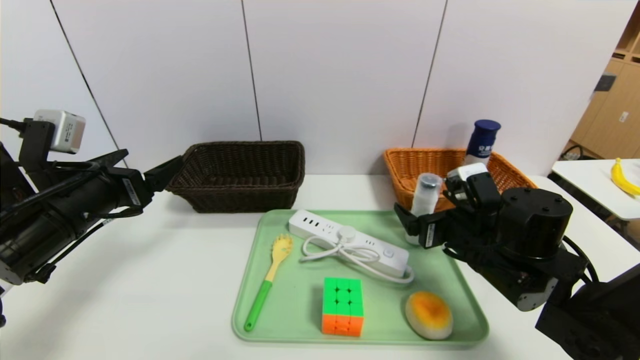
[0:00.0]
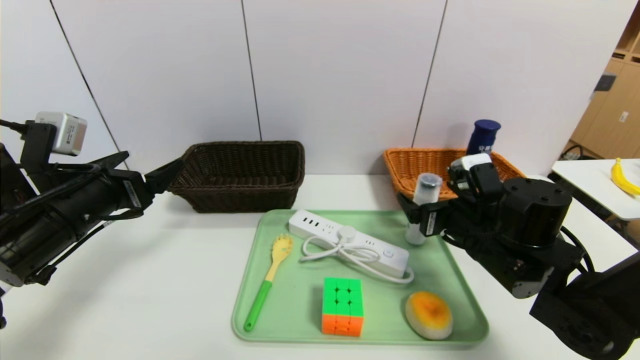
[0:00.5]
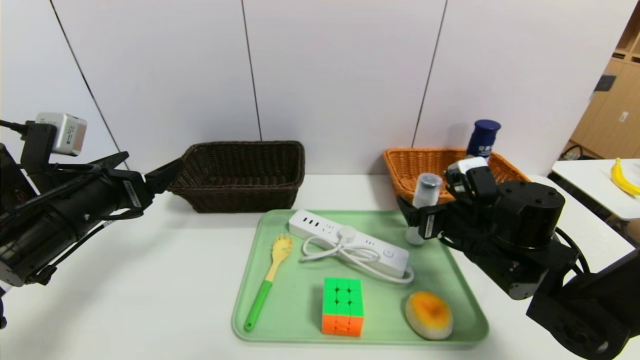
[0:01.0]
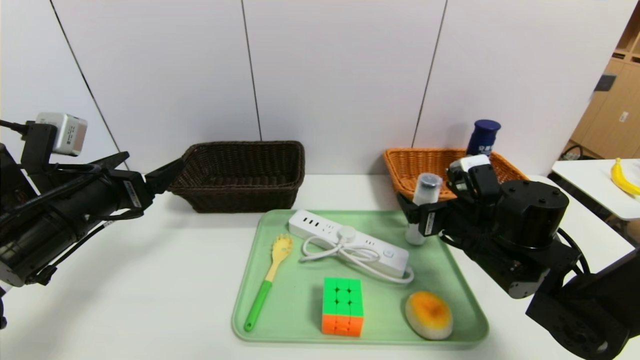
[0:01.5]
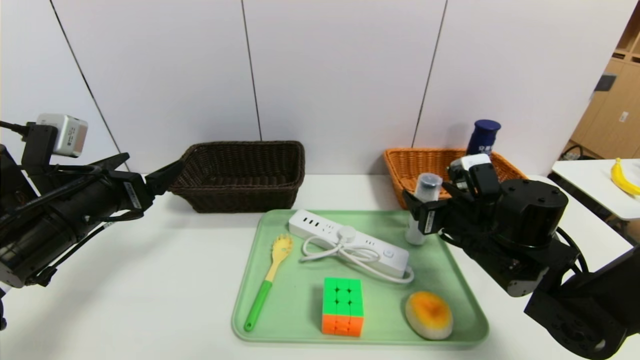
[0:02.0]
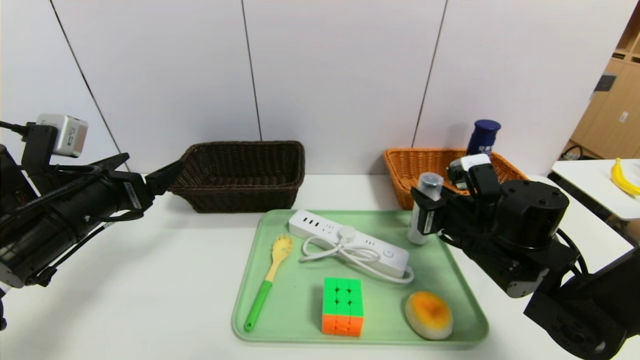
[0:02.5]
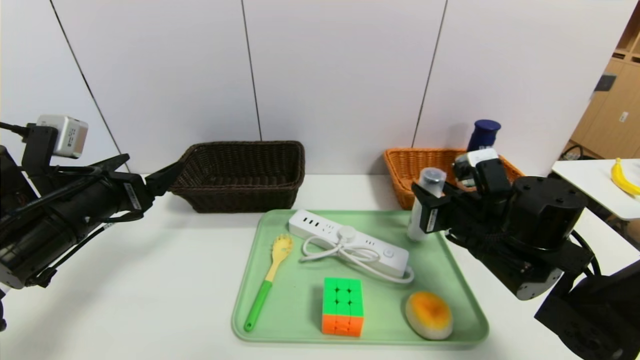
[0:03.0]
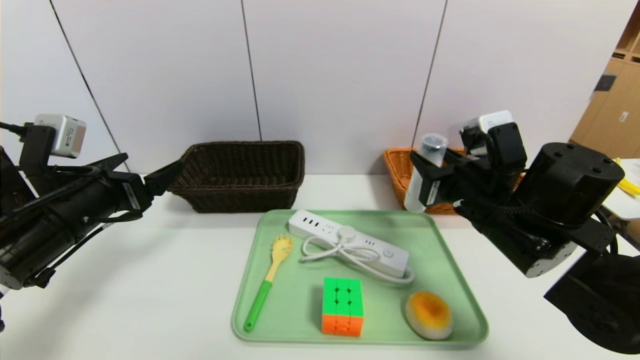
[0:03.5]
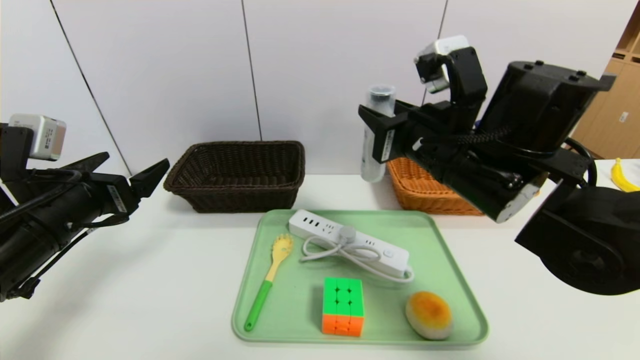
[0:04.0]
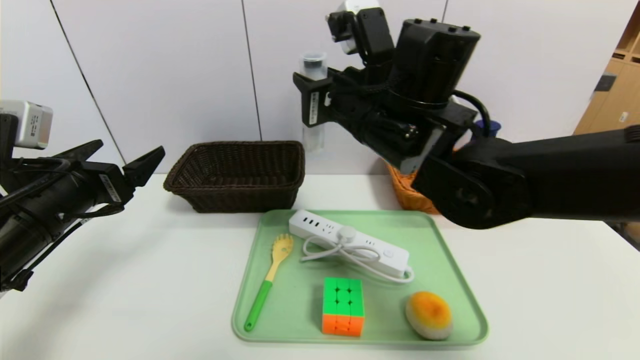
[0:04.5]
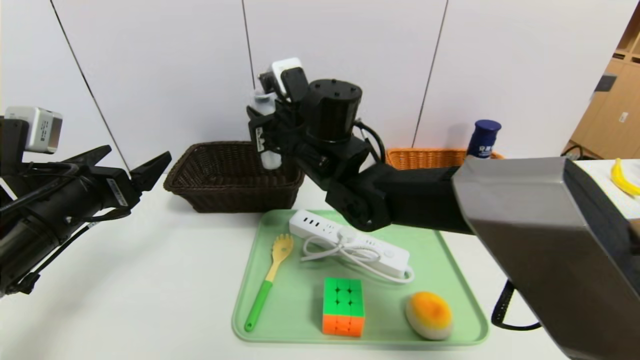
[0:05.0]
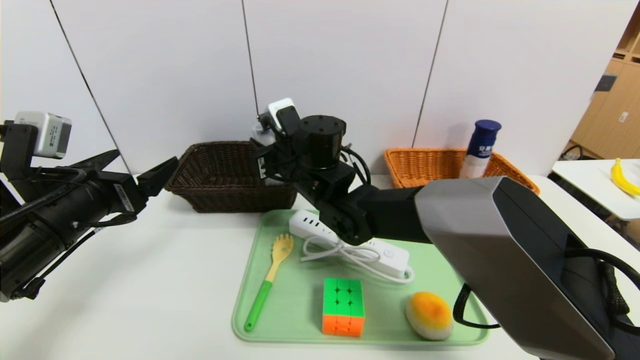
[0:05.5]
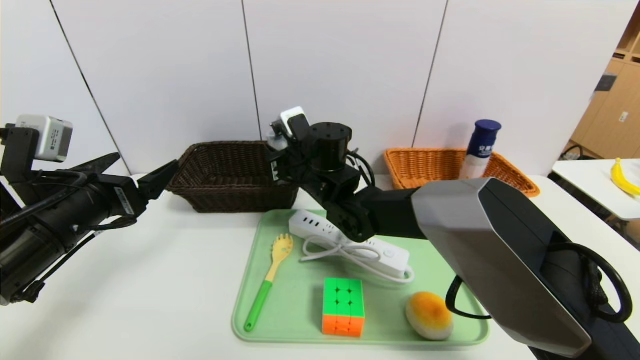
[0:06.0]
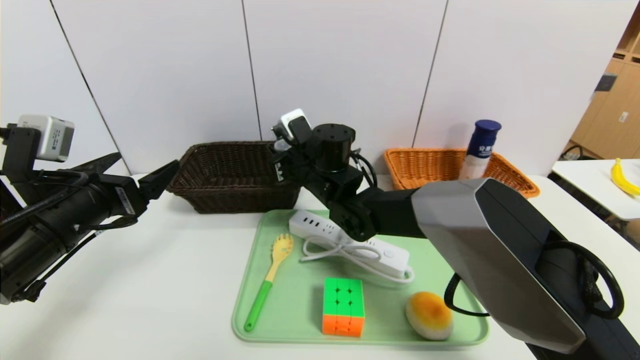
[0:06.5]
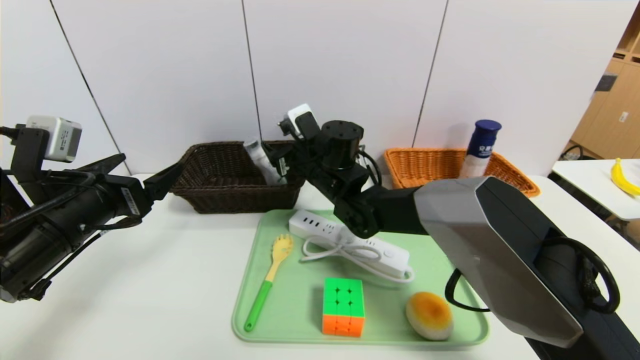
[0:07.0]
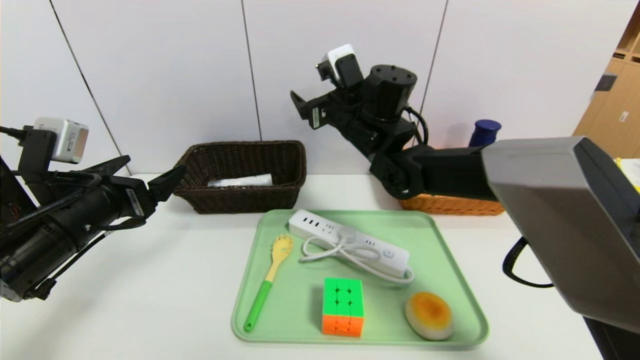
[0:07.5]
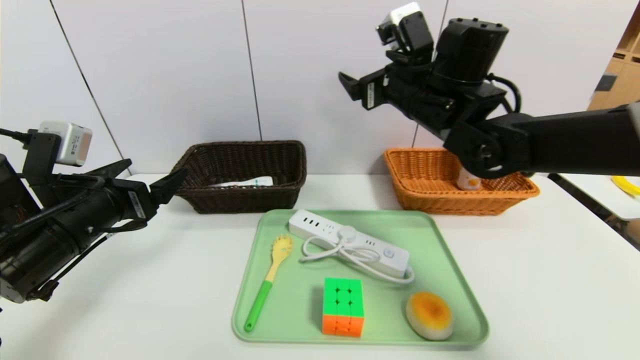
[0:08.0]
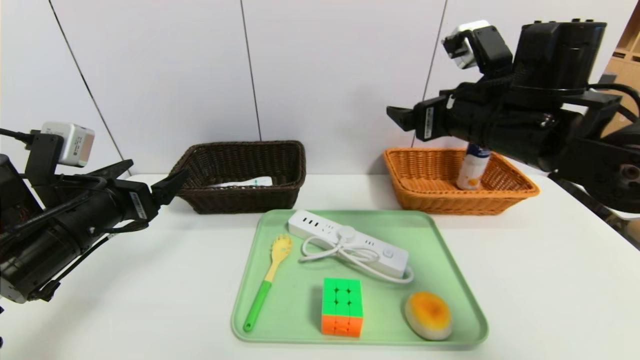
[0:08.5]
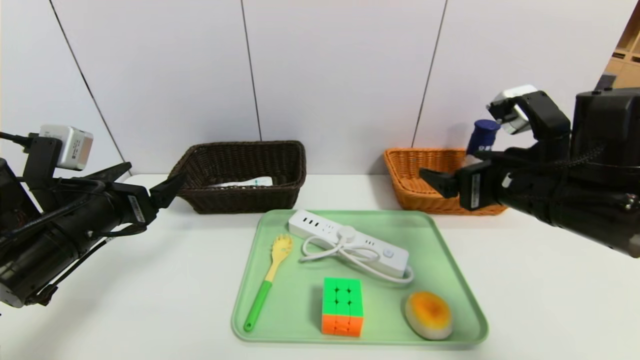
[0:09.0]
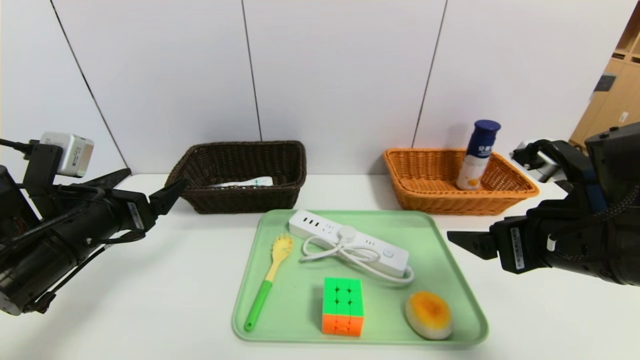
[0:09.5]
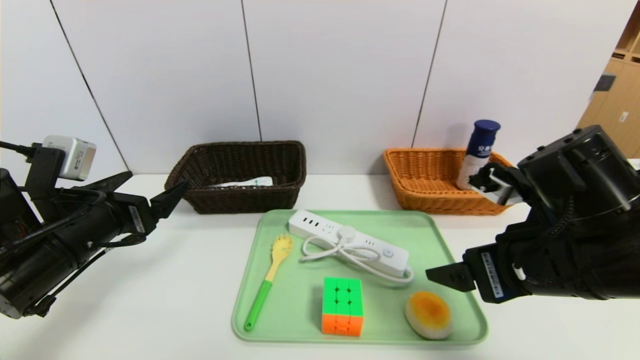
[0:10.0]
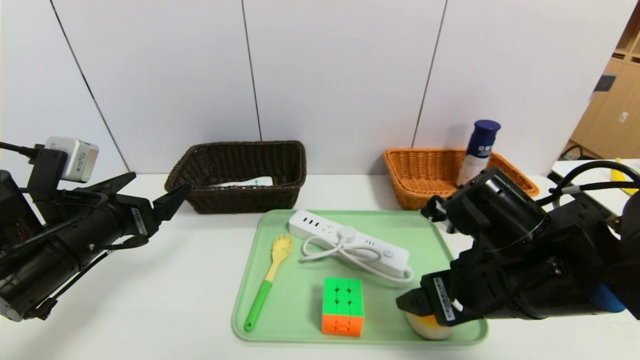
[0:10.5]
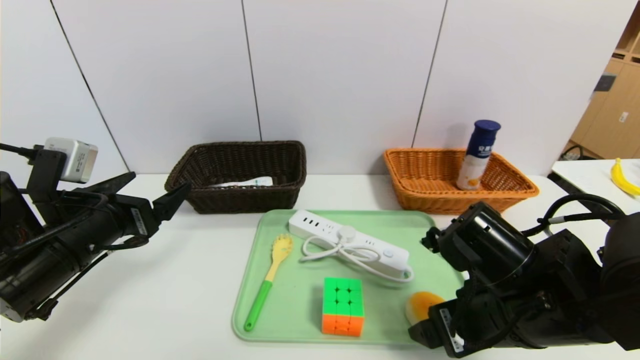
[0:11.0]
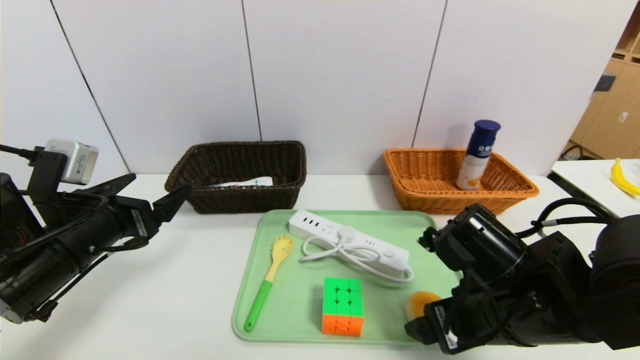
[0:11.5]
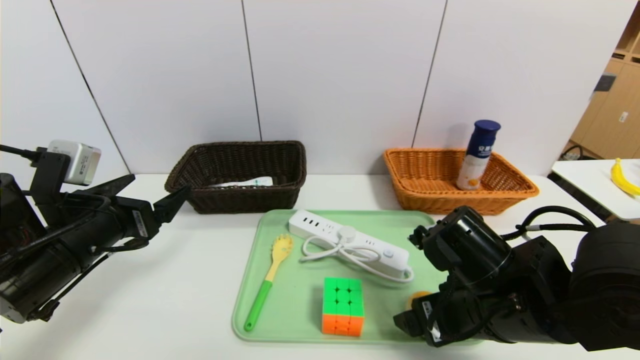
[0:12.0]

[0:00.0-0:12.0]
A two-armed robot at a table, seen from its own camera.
Task of the whole recording: place the food in the right basket with the right gripper, and place the non food items in the left basket with the left gripper.
0:00.0 to 0:02.0: The grippers stay close to where they were, moving slightly.
0:02.0 to 0:04.0: The right gripper goes some 15 cm upward and to the left, and closes.
0:04.0 to 0:06.0: The right gripper heads to the left, forward and downward, covering about 20 cm.
0:06.0 to 0:08.0: The right gripper is displaced to the right and upward by some 20 cm, and opens its fingers.
0:08.0 to 0:10.0: The right gripper shifts about 20 cm backward and downward.
0:10.0 to 0:12.0: The right gripper travels downward by roughly 10 cm.

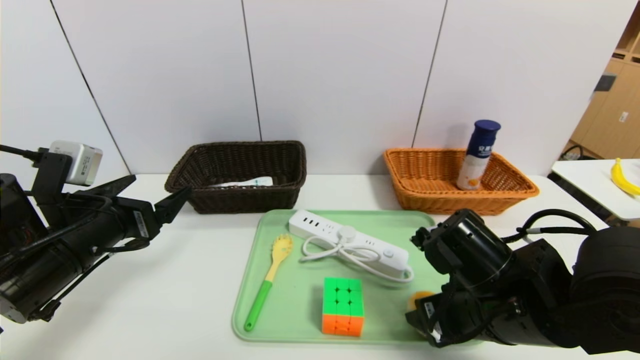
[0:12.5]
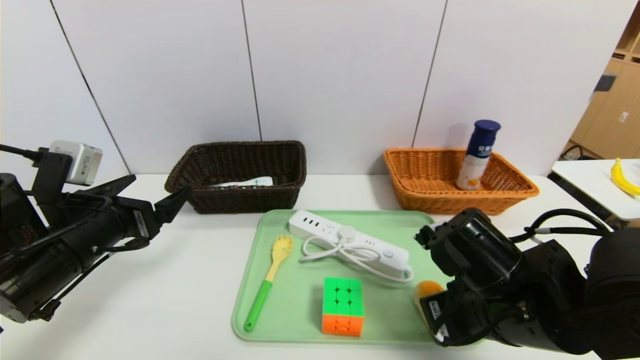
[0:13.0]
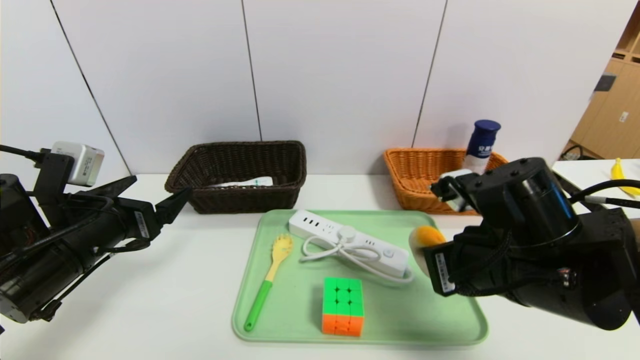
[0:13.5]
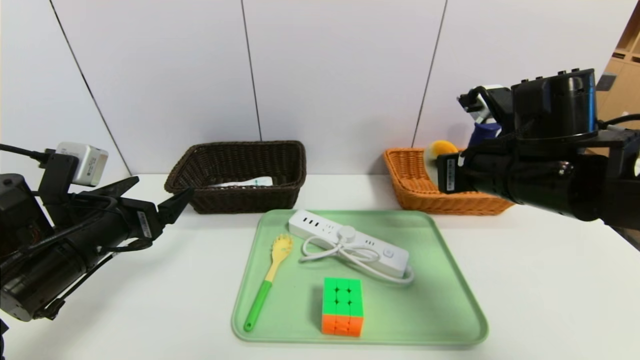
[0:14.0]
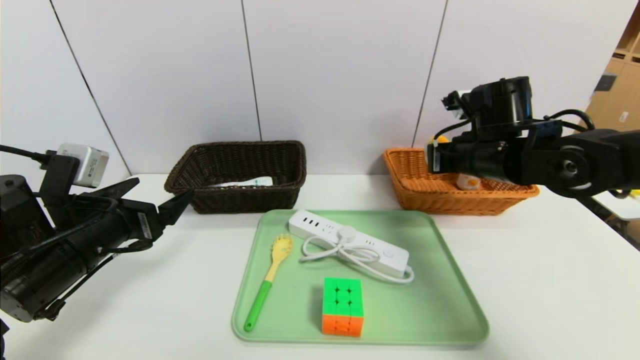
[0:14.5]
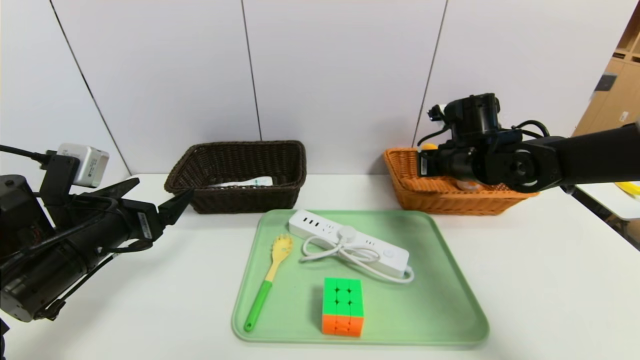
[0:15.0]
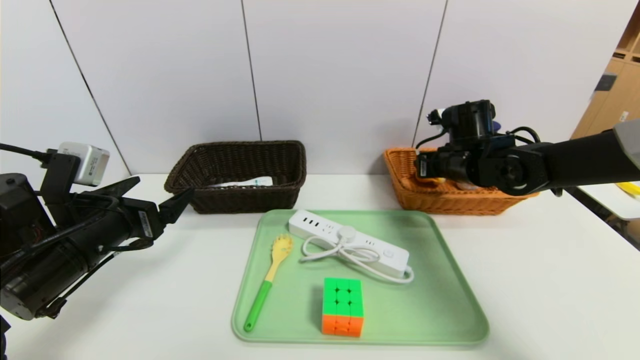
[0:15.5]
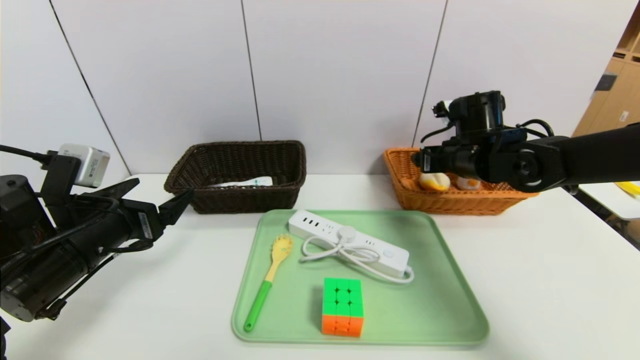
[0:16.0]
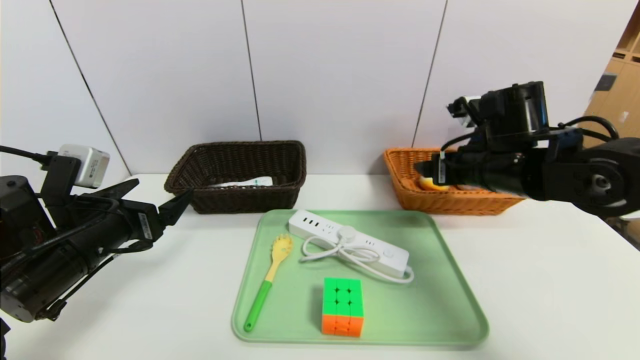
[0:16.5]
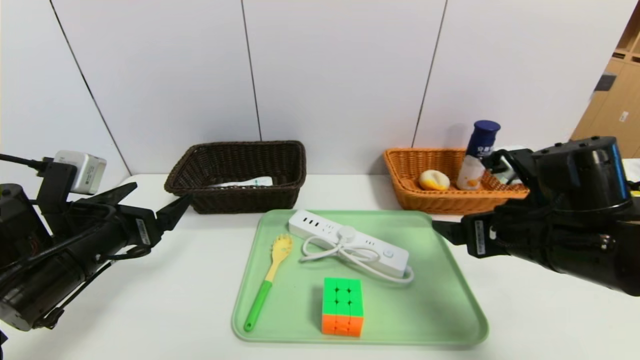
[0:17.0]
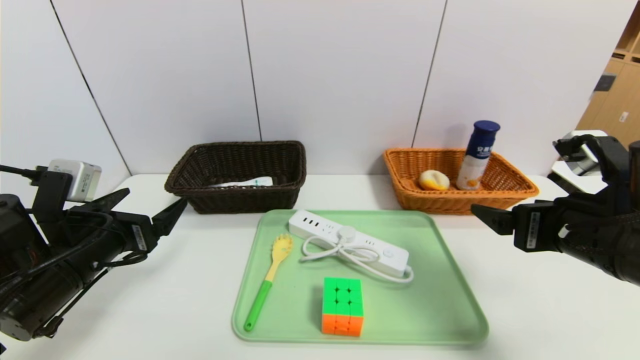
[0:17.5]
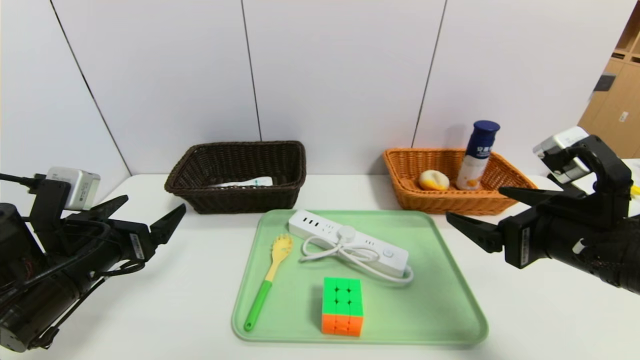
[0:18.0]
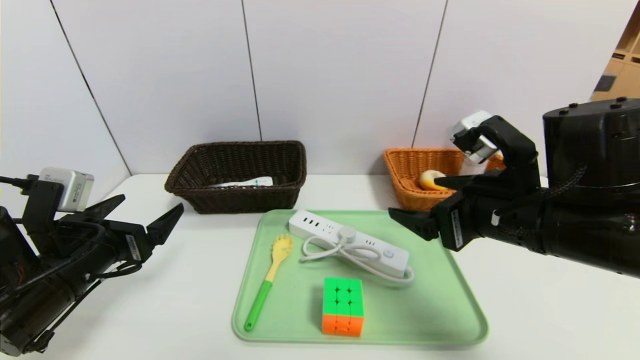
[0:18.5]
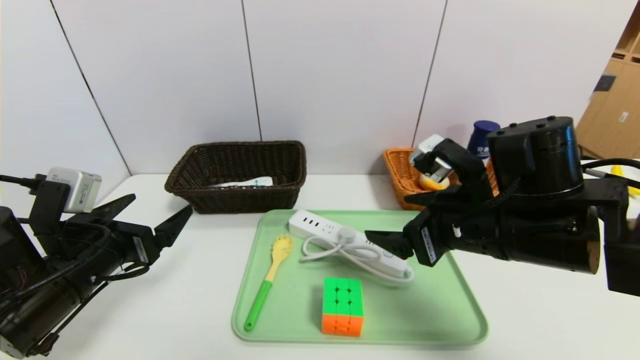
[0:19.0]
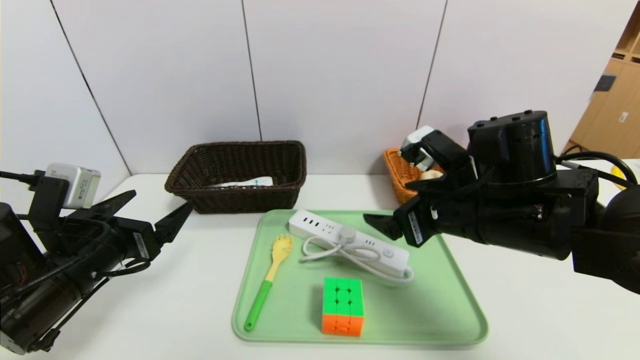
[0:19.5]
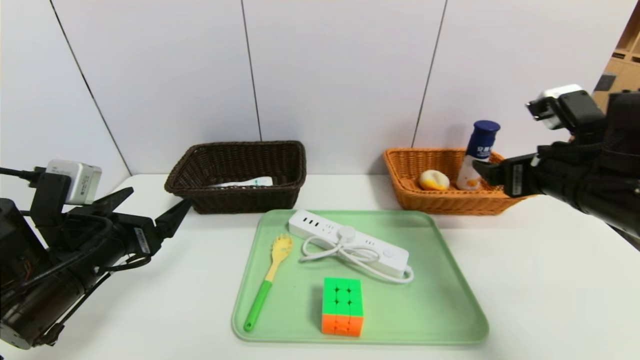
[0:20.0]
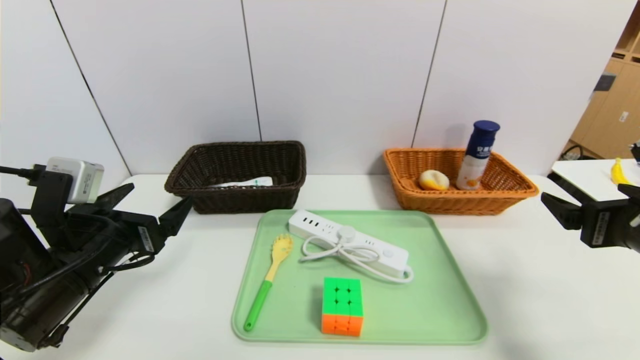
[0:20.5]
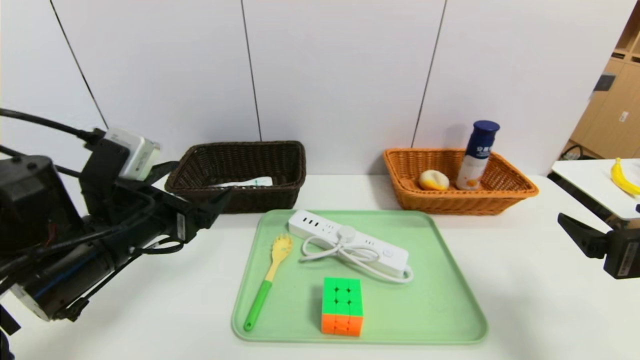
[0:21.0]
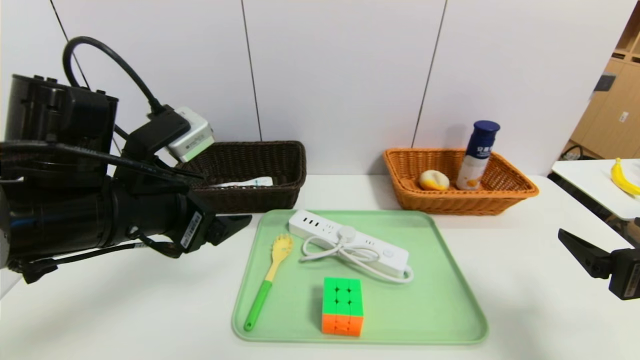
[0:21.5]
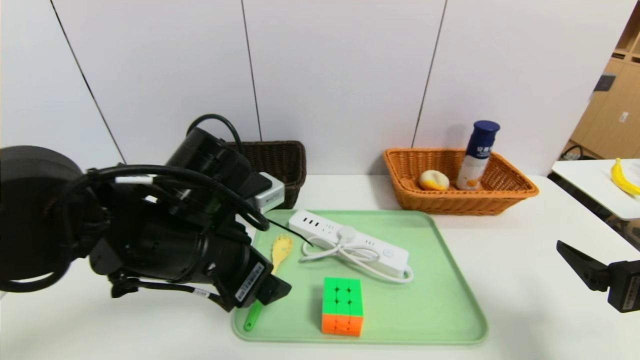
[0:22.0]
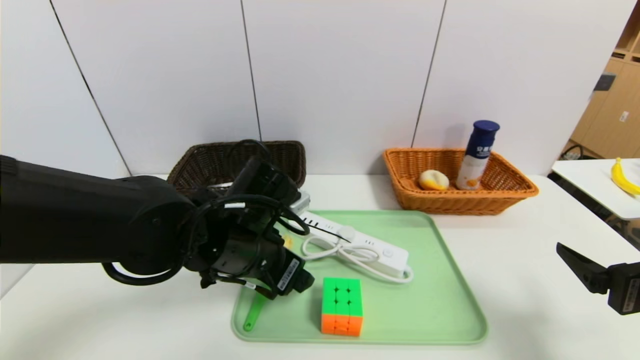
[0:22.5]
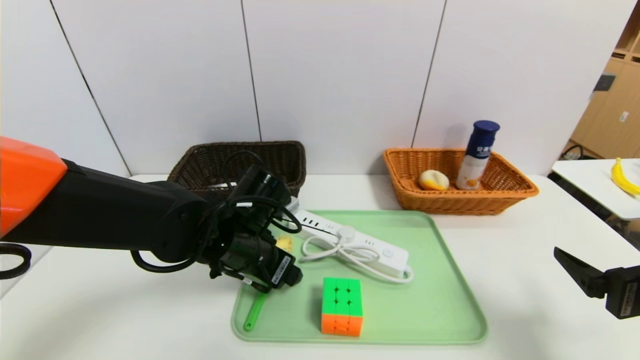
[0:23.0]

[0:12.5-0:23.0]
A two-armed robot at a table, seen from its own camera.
Task of the whole recording: place the food in the right basket with the right gripper, and place the non food items in the left basket with the left gripper.
Step, 0:12.5 to 0:16.0: Grasp the egg yolk pastry and put it in the right basket.
0:12.5 to 0:14.5: The right gripper shifts approximately 20 cm forward and upward, and closes.
0:14.5 to 0:16.5: The right gripper opens its fingers.
0:16.5 to 0:19.0: The right gripper shifts about 10 cm backward.
0:19.0 to 0:21.0: The right gripper shifts some 20 cm to the right and backward, while the left gripper ends up approximately 5 cm from where it was.
0:21.0 to 0:23.0: The left gripper travels to the right, forward and downward by about 15 cm.
